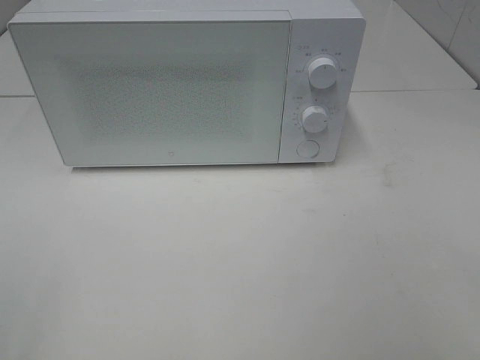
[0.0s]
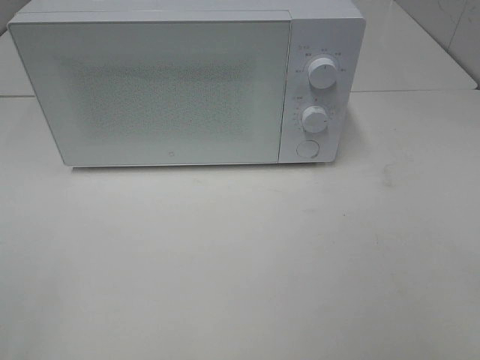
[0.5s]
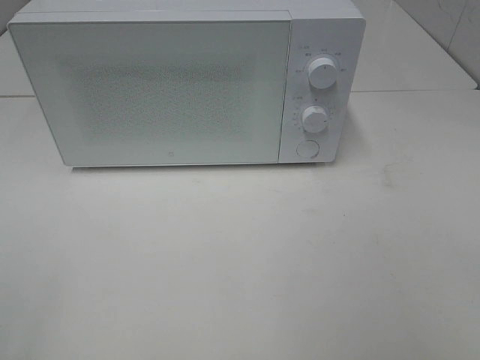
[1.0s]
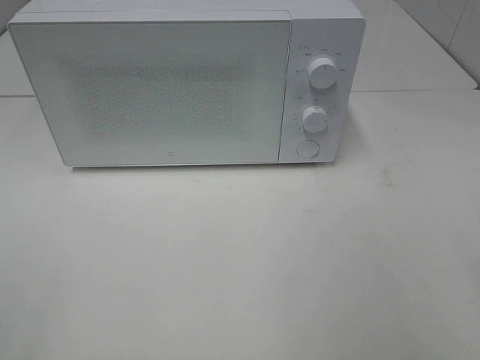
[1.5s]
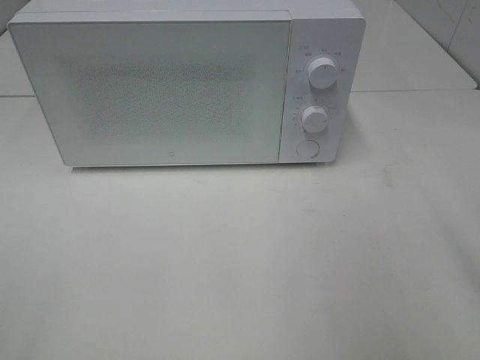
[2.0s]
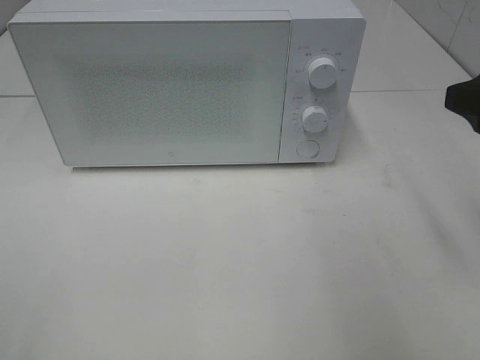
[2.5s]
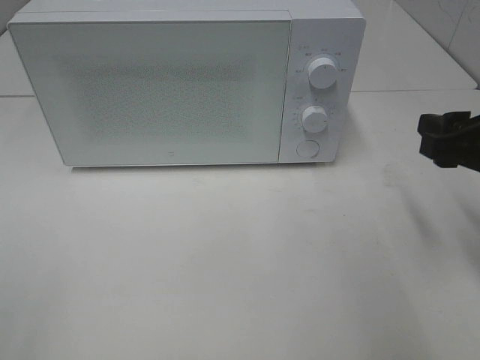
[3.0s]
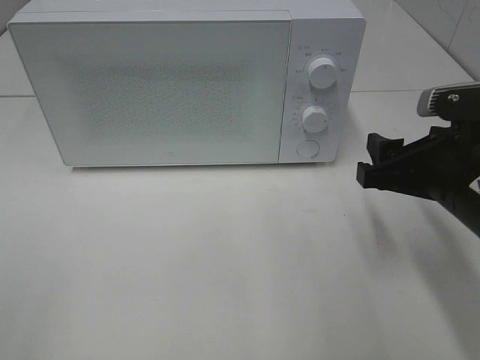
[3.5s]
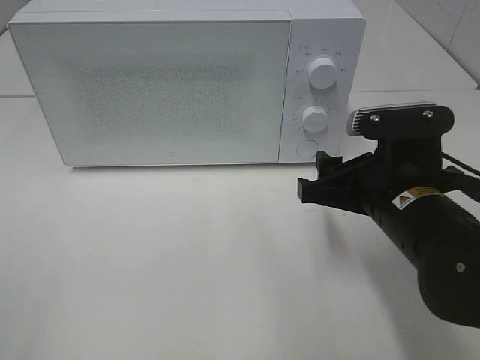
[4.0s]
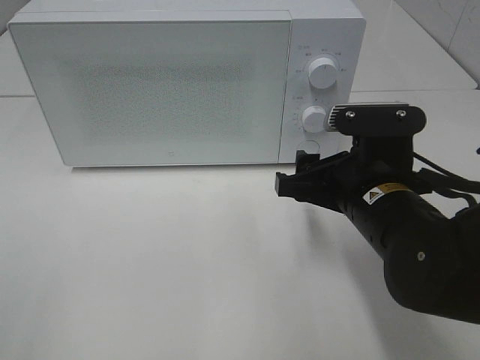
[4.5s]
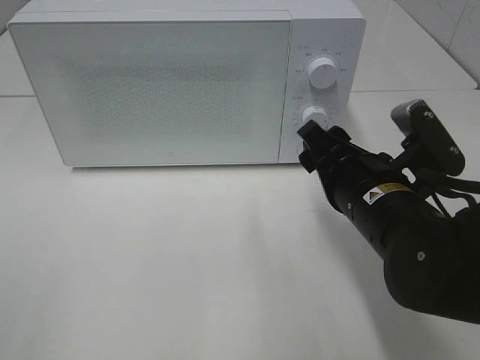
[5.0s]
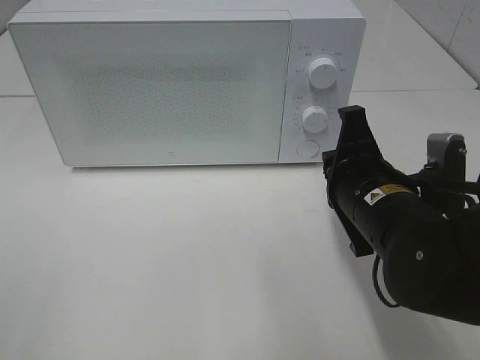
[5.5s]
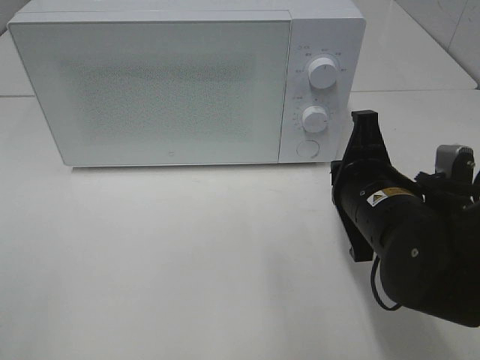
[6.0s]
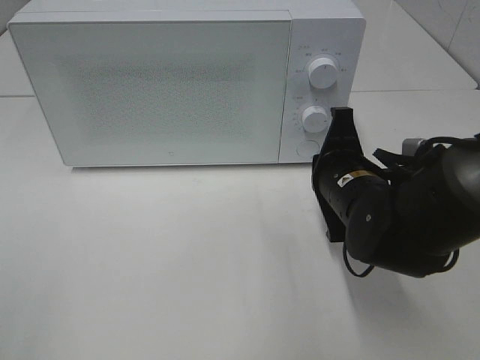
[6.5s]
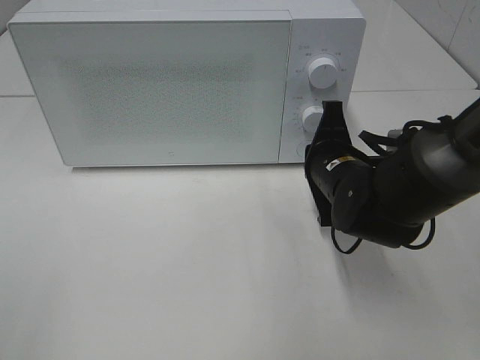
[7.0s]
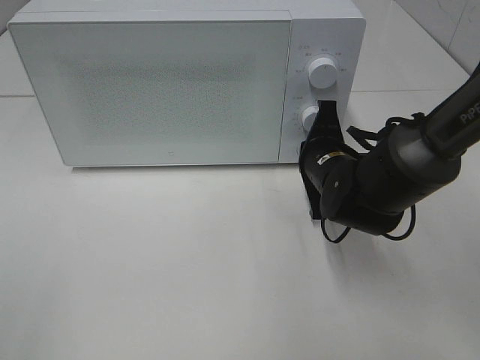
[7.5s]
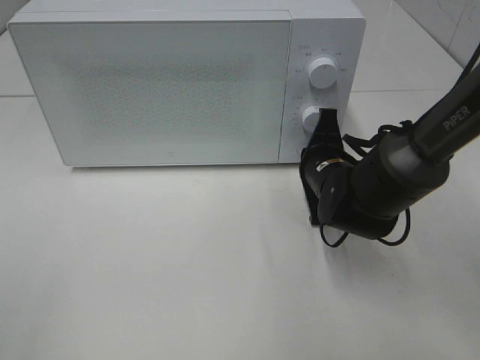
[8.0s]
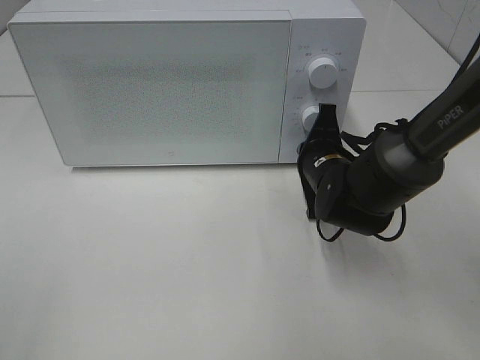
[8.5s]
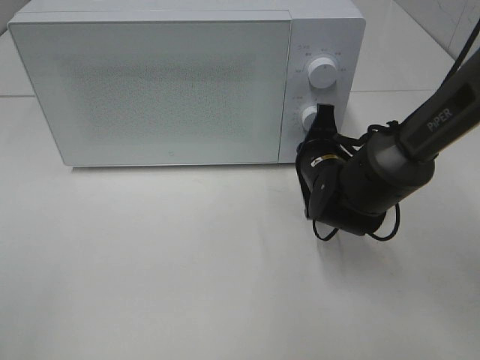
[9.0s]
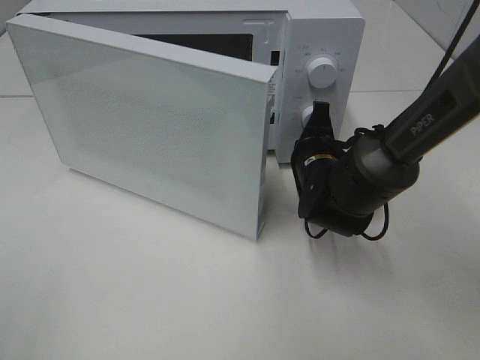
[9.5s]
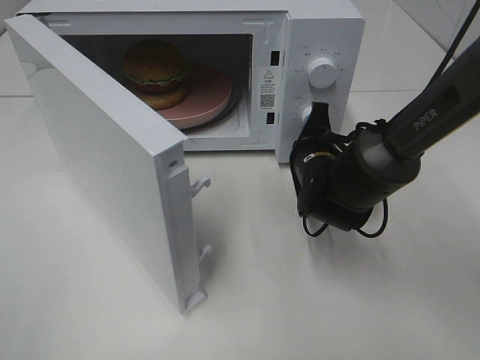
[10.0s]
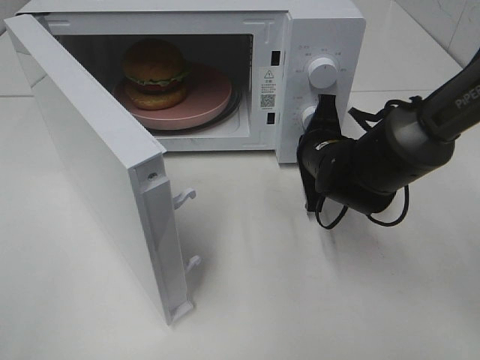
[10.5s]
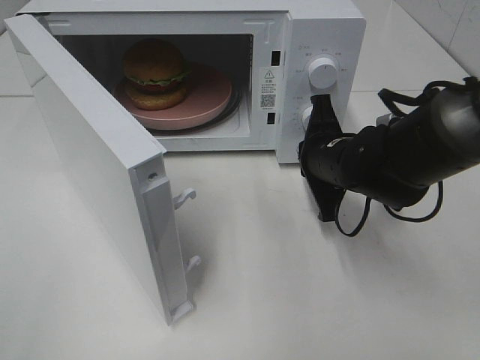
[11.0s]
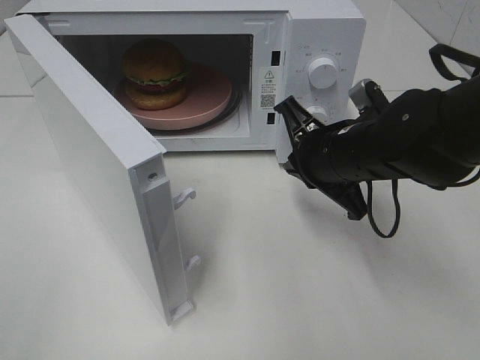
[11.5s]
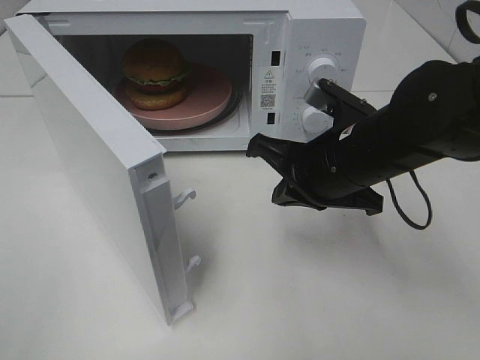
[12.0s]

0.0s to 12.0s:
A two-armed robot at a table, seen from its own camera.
Task of the whole recording: Heat the burger.
Step, 0.0s to 10.5s: Right hand: press the switch.
2.0s to 4.0s: The right gripper is displaced downward, to the left and forward by some 20 cm.
4.0s to 6.0s: The right gripper closes up.
6.0s to 8.0s: The right gripper moves forward and downward, roughly 15 cm.
10.0s to 12.0s: The right gripper heads upward and backward, covering roughly 15 cm.

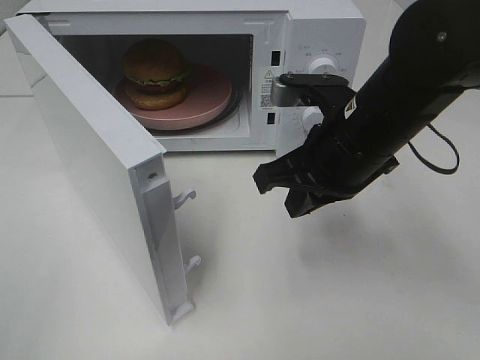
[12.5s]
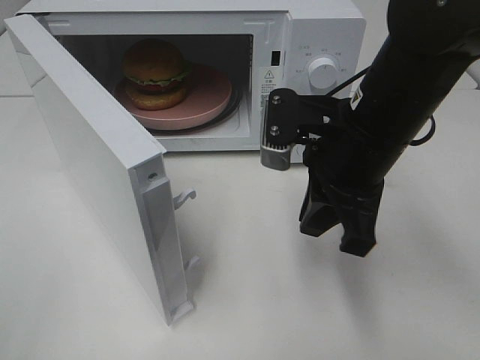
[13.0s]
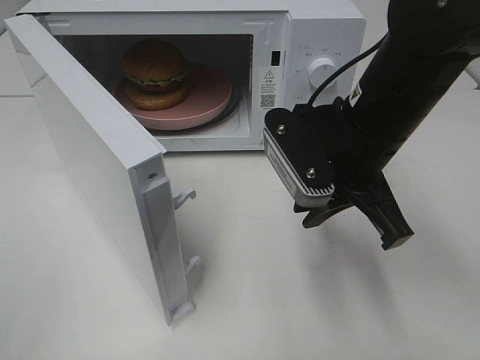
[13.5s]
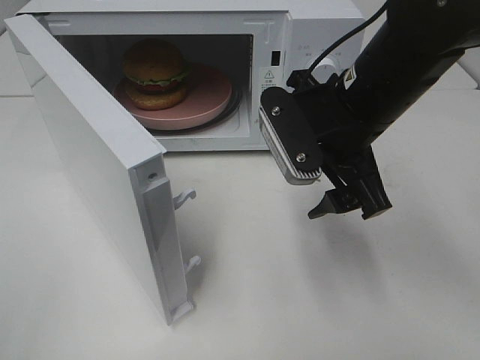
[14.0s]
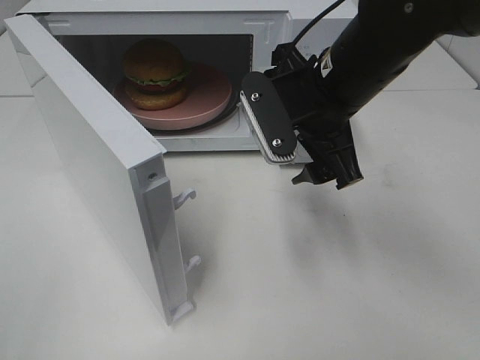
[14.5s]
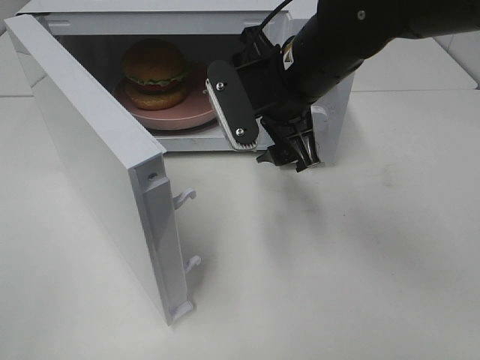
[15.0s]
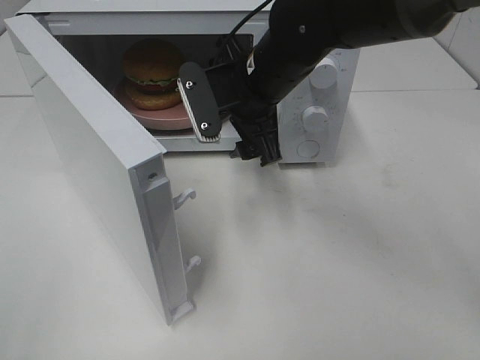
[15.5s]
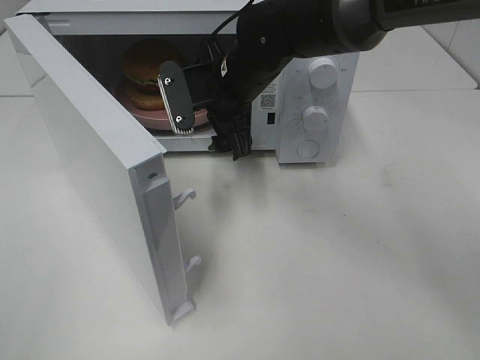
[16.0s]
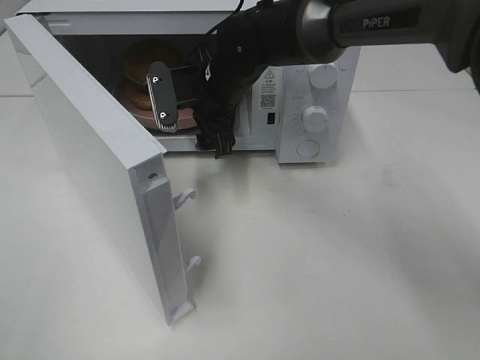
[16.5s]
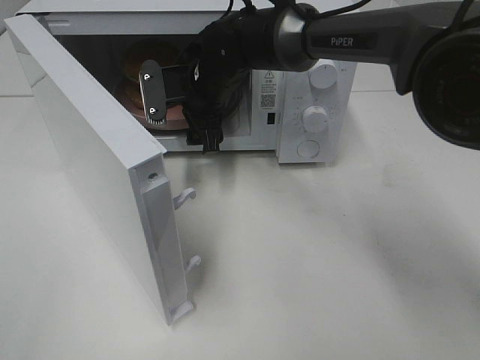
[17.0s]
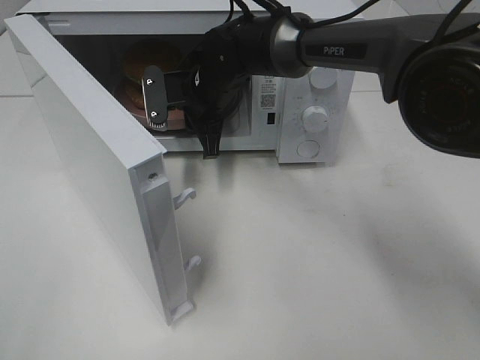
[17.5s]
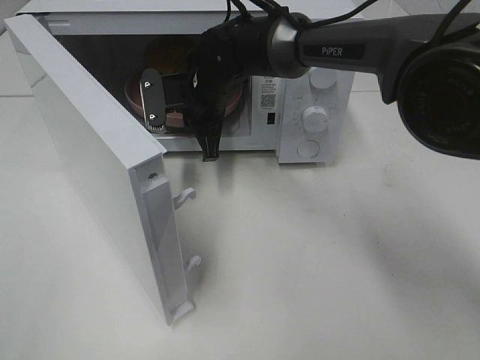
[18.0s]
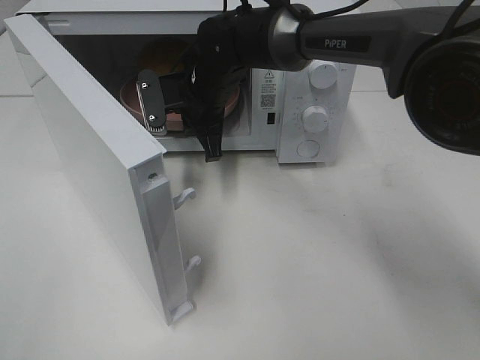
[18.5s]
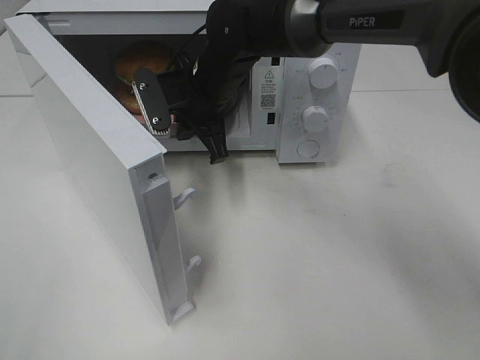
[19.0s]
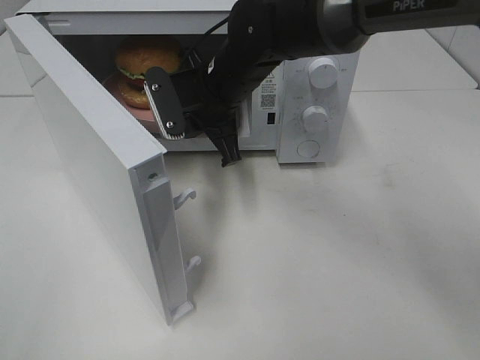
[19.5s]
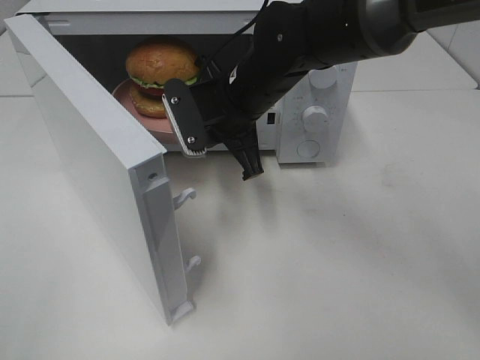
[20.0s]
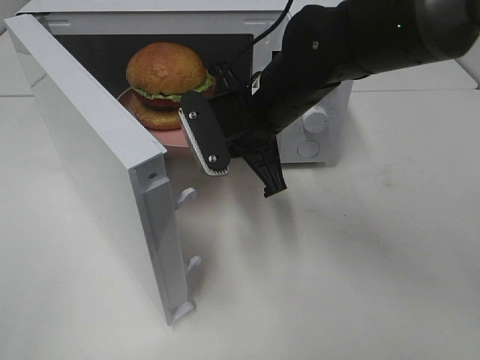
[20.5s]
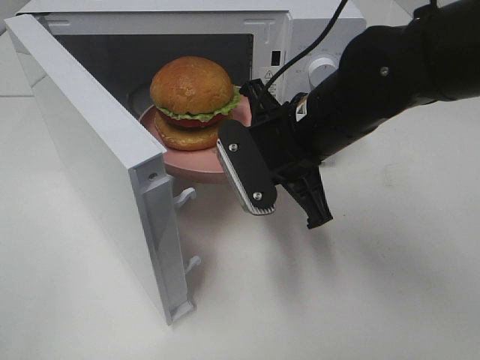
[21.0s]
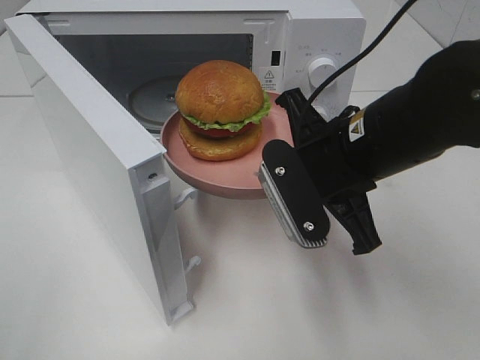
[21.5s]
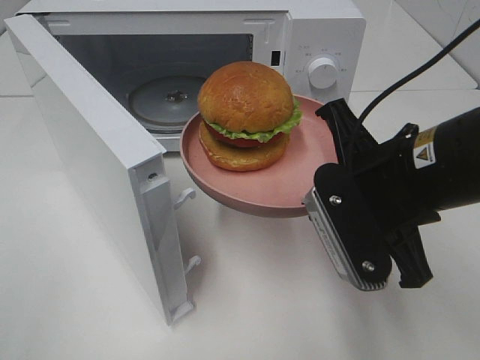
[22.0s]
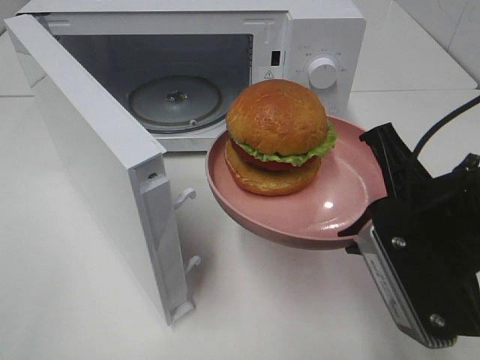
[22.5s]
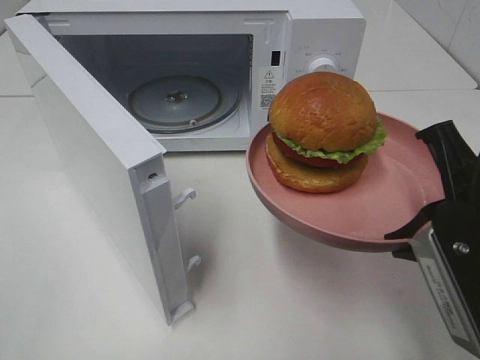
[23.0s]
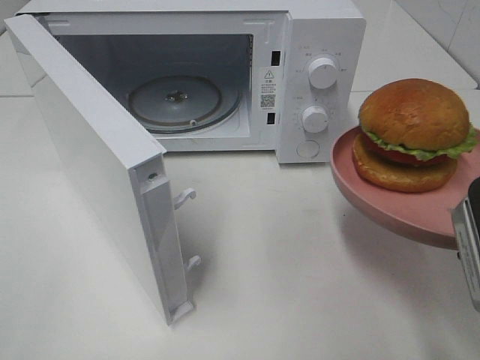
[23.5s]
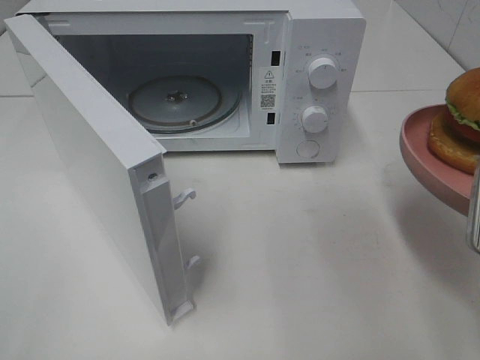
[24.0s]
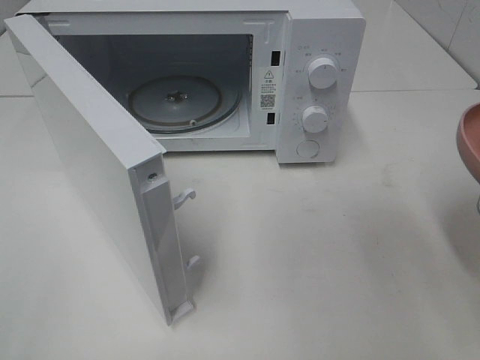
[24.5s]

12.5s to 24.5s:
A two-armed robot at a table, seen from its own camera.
Task of the whole recording: Heat the burger.
Step, 12.5s to 17.5s: Right hand: grab the plate with the hamburger.
12.5s to 14.5s: The right gripper opens its fingers.
14.5s to 16.5s: The right gripper heads forward, to the left and downward, covering roughly 15 cm.
16.5s to 18.5s: The right gripper closes up.
18.5s to 20.5s: The right gripper heads backward and to the right, covering some 15 cm.
20.5s to 22.5s: The right gripper shifts about 20 cm backward and to the right.
22.5s to 24.5s: The right gripper is displaced to the right by roughly 10 cm.

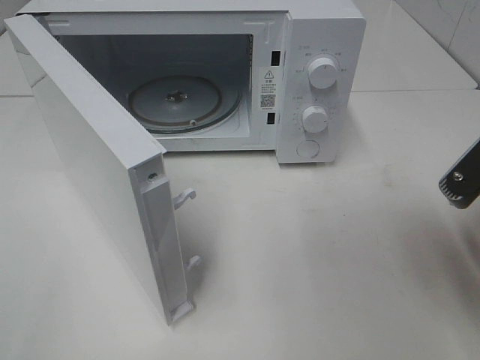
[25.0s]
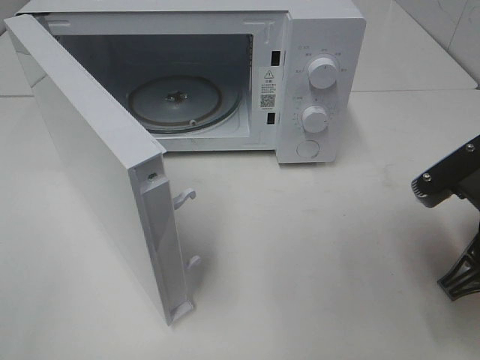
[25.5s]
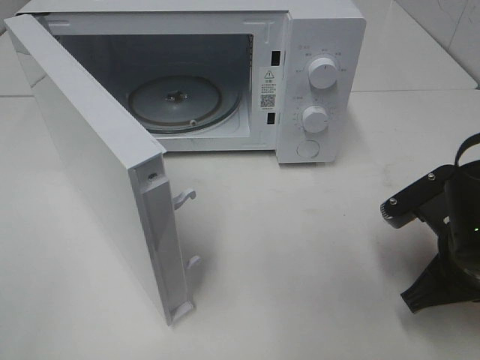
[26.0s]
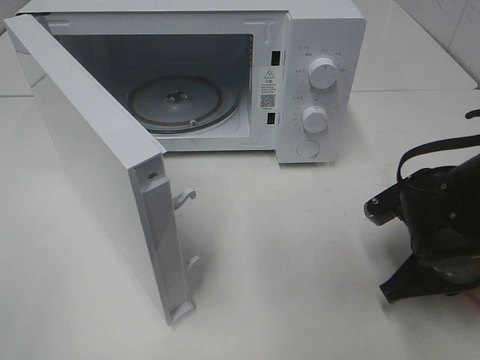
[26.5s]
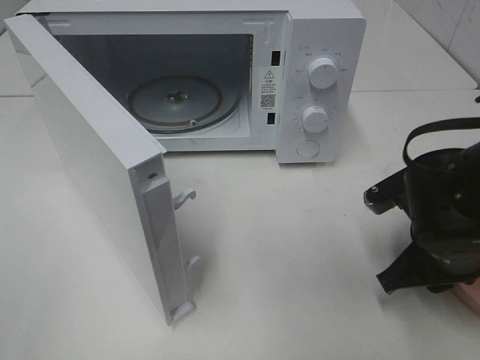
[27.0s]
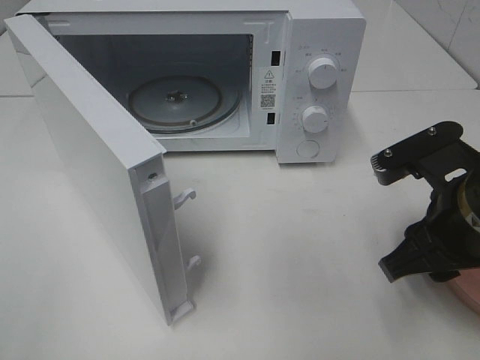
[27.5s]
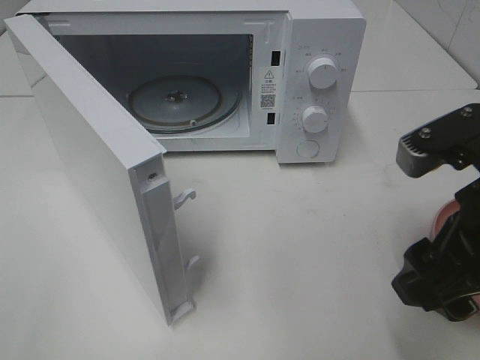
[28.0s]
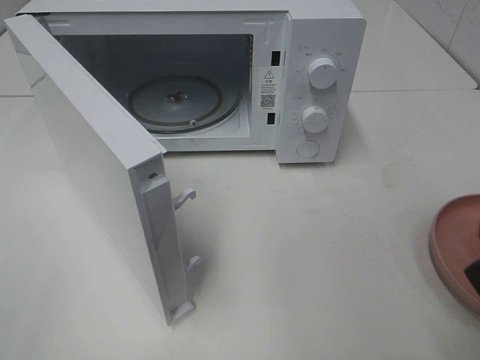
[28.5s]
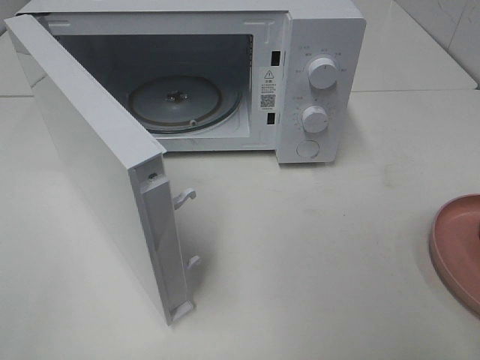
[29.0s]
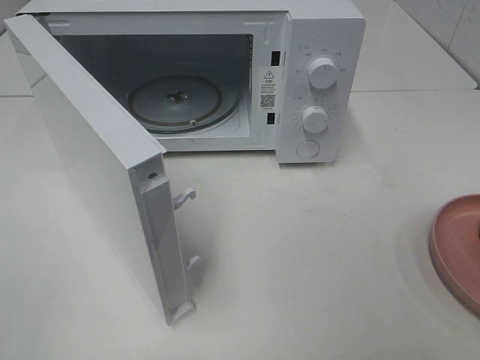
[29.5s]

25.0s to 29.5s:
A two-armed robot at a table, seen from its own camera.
Task of the whole recording: Heat the burger.
Step, 25.0s to 27.0s: Right hand: place the plate on the table.
25.0s to 27.0s: The right gripper goes approximately 10 cm downward and forward, and opens.
27.0s to 29.5s: The right gripper heads backward, upward and to the right, covering approximately 25 cm, and opens its fingers.
